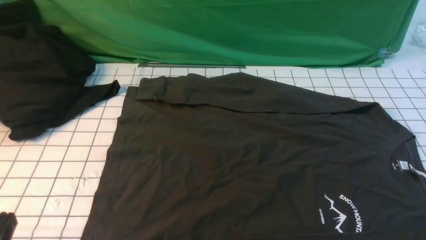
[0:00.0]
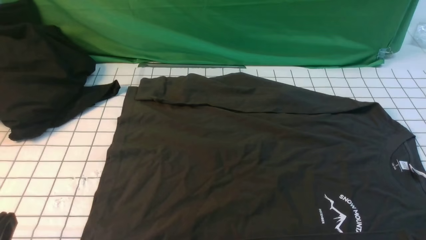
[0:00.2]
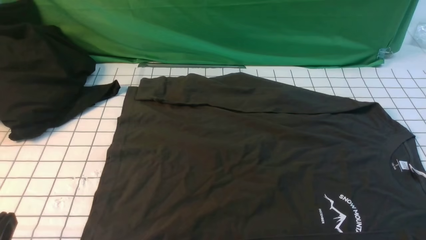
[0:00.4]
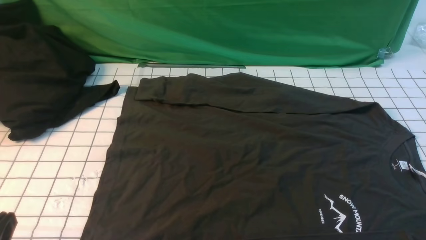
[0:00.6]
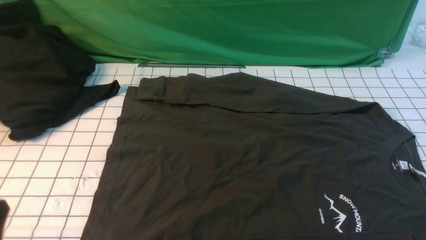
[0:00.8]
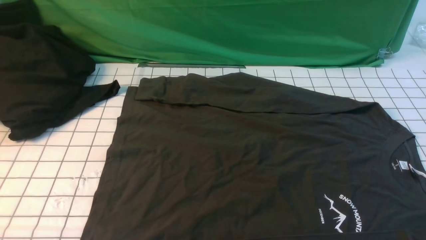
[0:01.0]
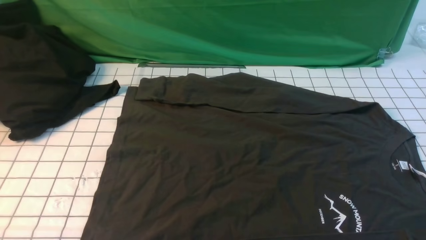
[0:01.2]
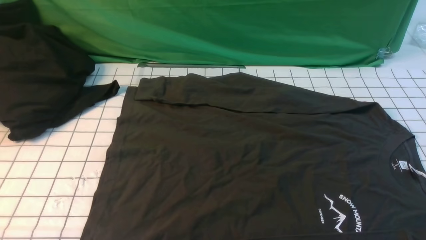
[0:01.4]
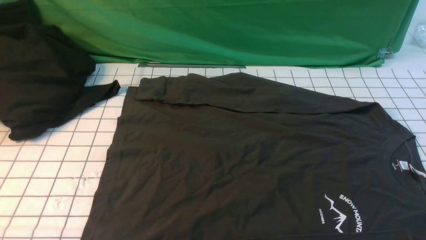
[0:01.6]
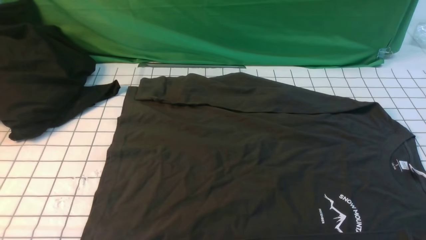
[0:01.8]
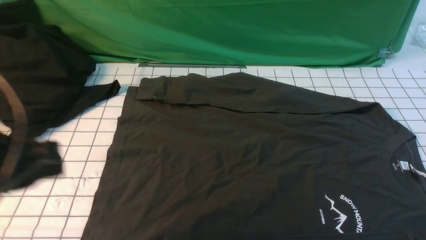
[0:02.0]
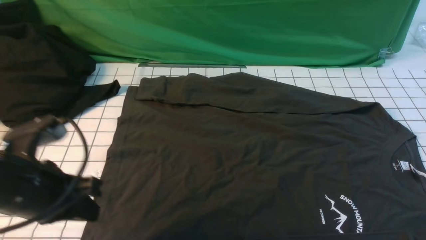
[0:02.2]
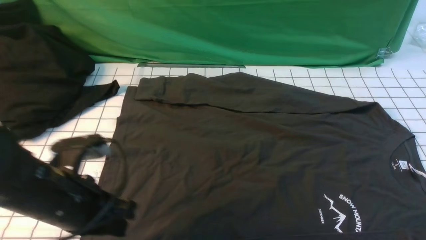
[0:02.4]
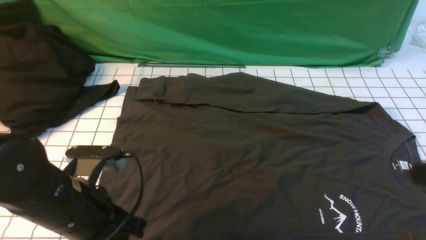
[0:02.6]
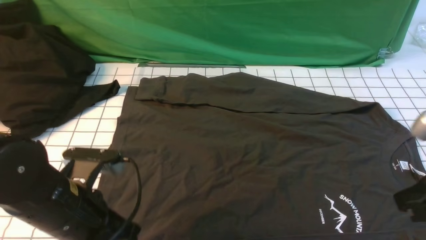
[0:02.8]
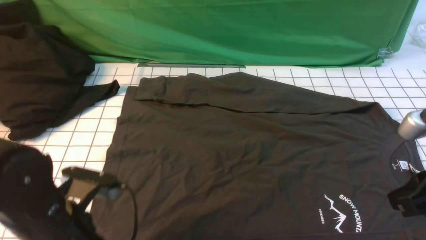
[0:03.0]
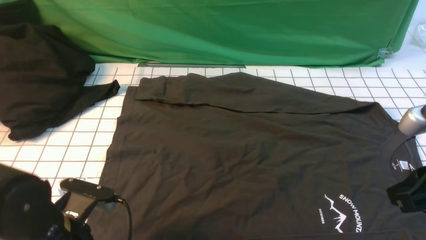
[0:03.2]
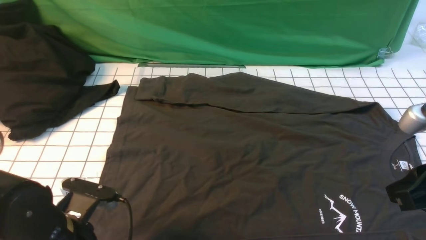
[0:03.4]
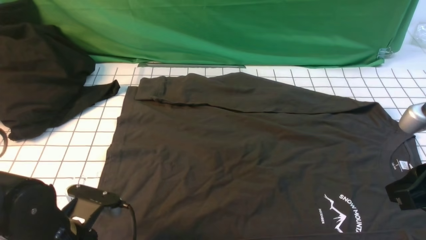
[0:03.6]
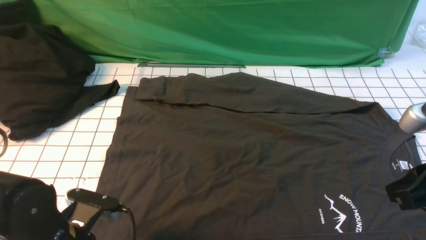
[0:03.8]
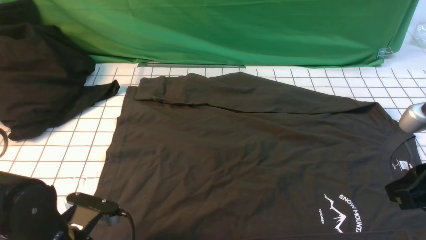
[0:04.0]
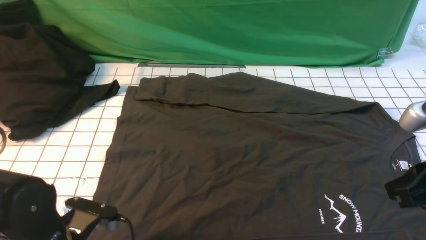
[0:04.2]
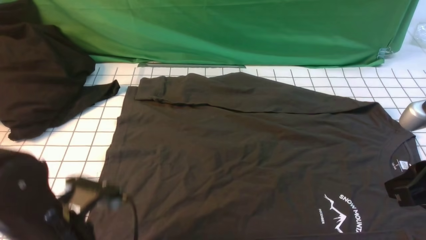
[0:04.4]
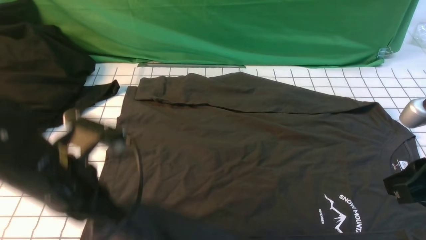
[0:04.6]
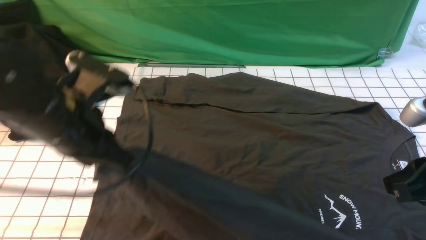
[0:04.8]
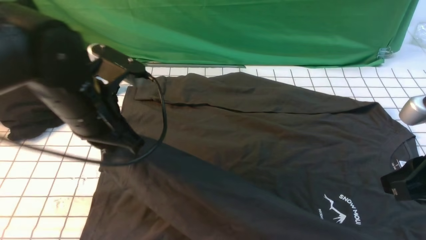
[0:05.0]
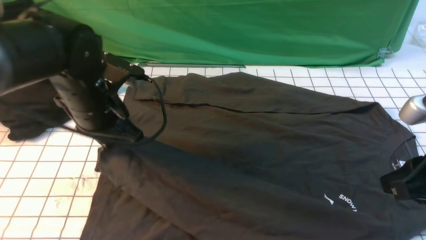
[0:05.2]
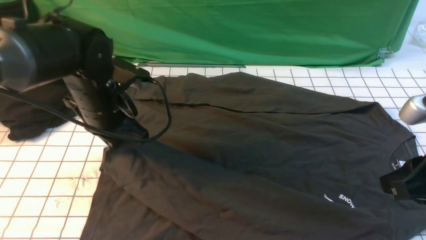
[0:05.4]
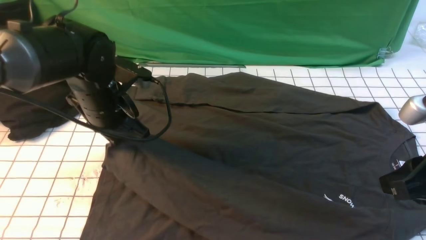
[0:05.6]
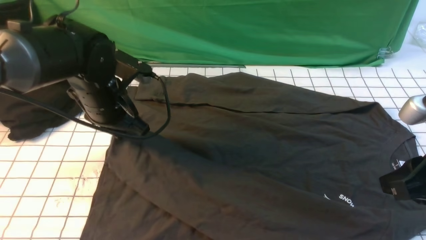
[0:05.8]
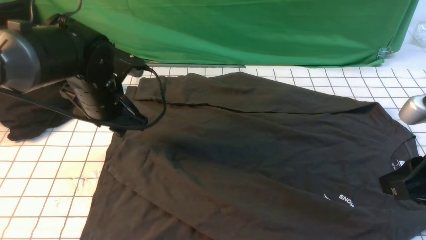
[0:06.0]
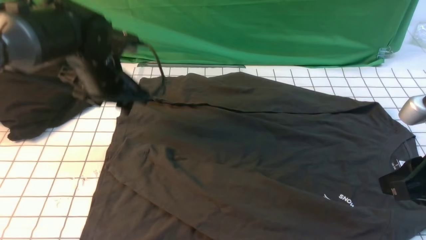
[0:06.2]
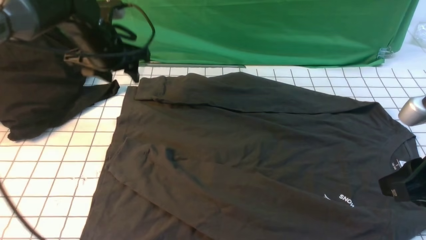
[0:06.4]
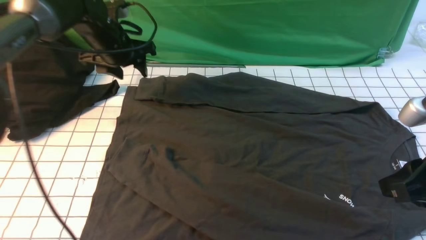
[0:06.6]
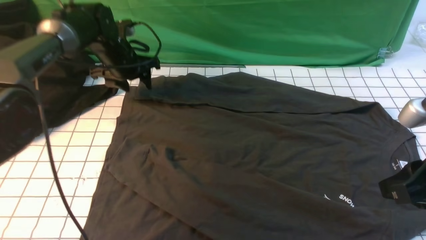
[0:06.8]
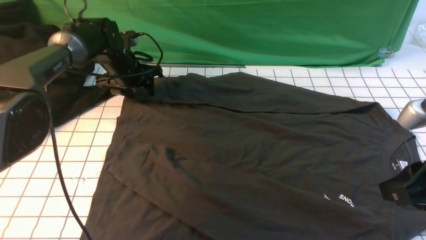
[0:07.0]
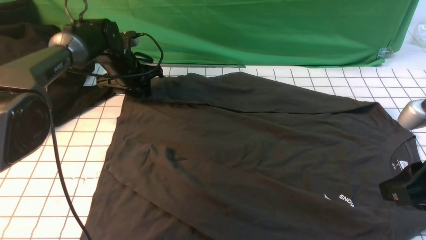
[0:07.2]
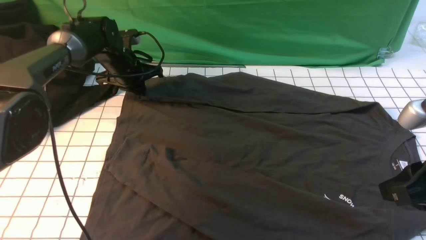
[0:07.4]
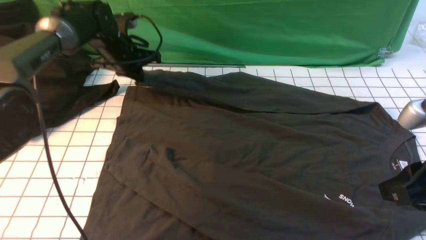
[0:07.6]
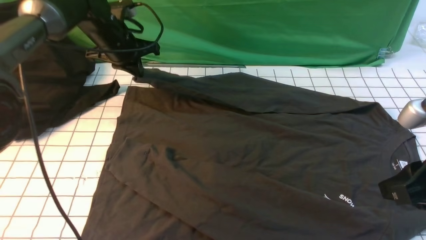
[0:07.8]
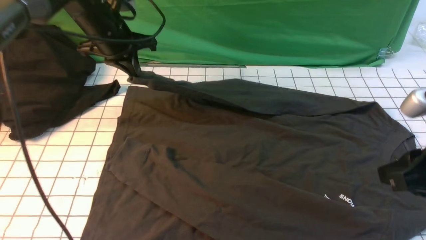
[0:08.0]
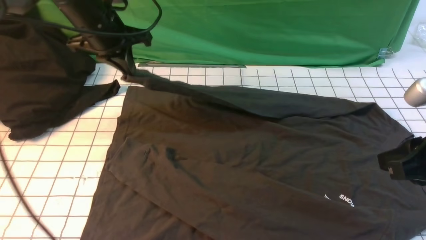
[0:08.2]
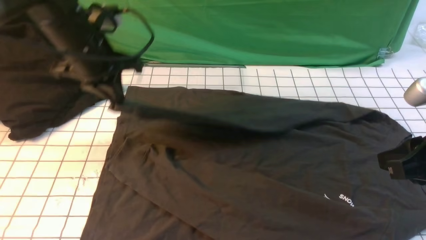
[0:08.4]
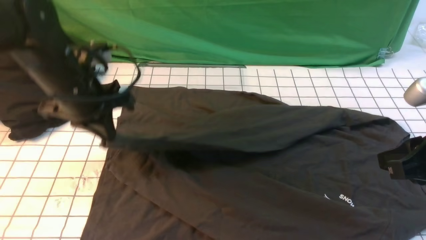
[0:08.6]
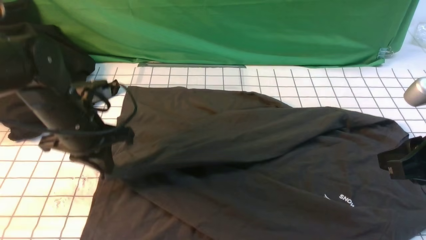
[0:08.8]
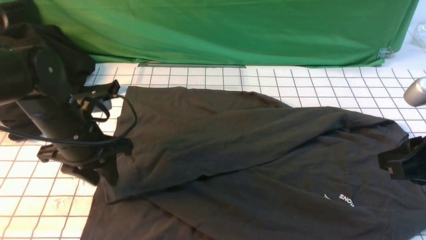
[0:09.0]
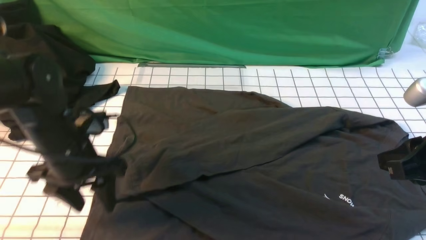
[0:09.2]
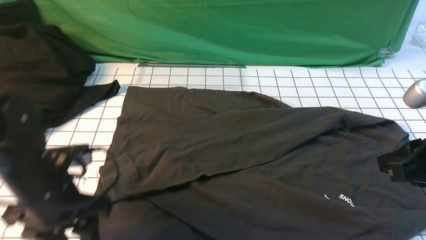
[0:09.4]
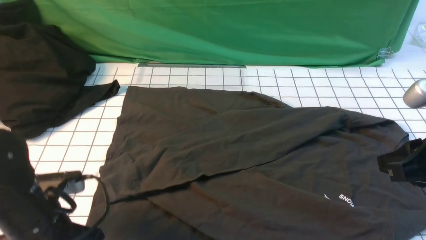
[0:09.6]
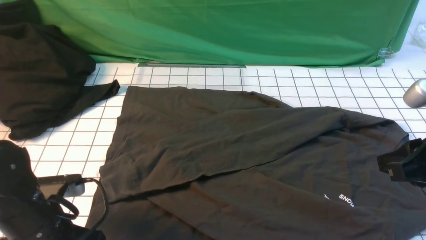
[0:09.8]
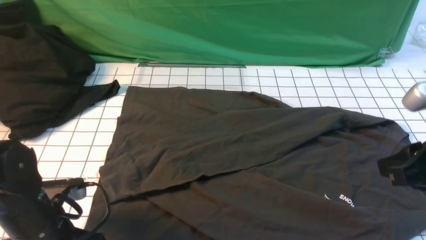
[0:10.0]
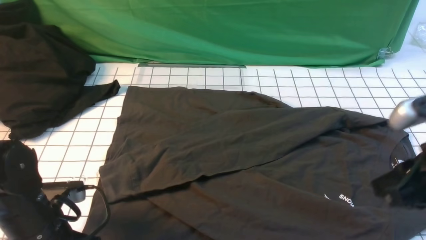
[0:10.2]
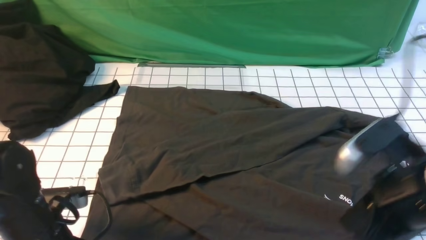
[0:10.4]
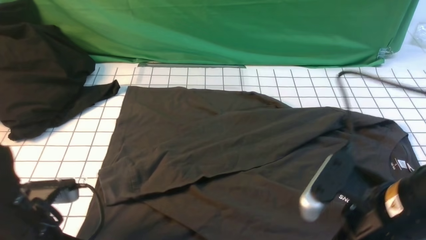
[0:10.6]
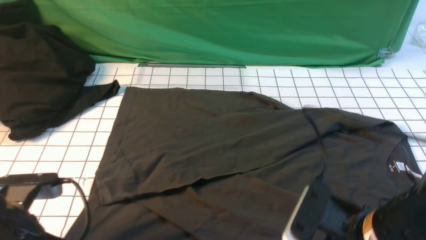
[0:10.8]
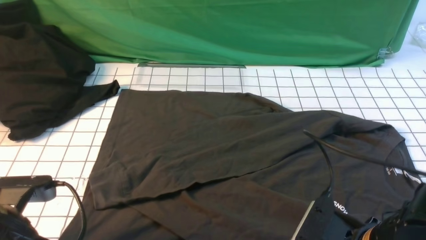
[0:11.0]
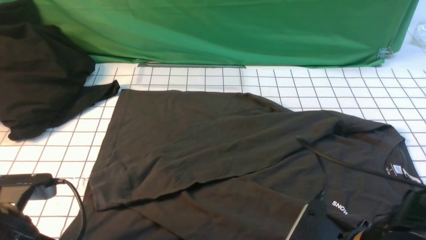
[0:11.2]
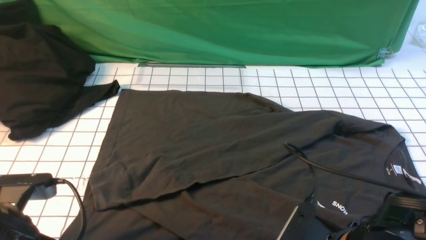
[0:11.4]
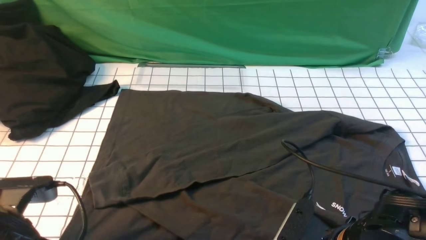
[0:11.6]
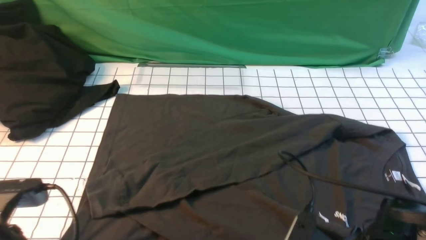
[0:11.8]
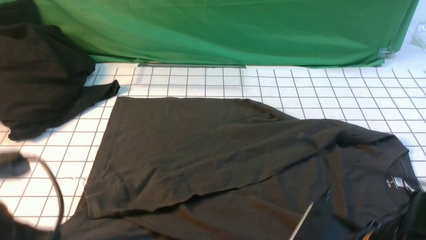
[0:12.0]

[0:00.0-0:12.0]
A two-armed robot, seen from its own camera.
Step, 0.0 to 4.2 s: use the left arm to clamp the cuff closest to it.
Step, 4.4 to 5.8 s: use the left arm to drag and place the cuff at the centered position on the left edge of the fabric.
Step, 6.0 to 7.2 s: use the left arm to clamp the cuff farthest from it.
Step, 7.4 to 8.8 s: use the left arm to drag and drop the cuff onto the cuff closest to the left arm.
Step, 9.0 to 11.4 s: use both arms simultaneously to clamp the lower edge of the clothing fabric.
1.6 to 3.0 s: The left gripper travels downward, forward and to the right by some 20 cm. Meanwhile the right gripper moves forward, upward and to the left, roughly 15 cm, and closes its fingers.
3.0 to 4.4 s: The left gripper closes its fingers.
4.4 to 6.0 s: The left gripper is displaced forward by some 20 cm, and opens up.
6.0 to 7.6 s: The left gripper moves forward, some 15 cm, and closes.
7.6 to 9.0 s: The left gripper moves backward, some 20 cm, and opens.
9.0 to 10.4 s: The left gripper travels backward by some 10 cm, and closes up; the right gripper moves to the left, approximately 5 cm.
10.4 to 12.0 s: The left gripper heads upward, covering roughly 10 cm. Meanwhile the right gripper travels downward by roughly 5 cm, and opens and closes again.

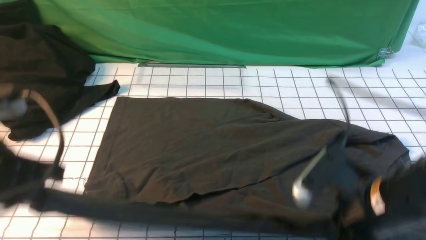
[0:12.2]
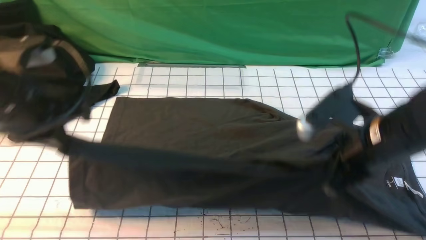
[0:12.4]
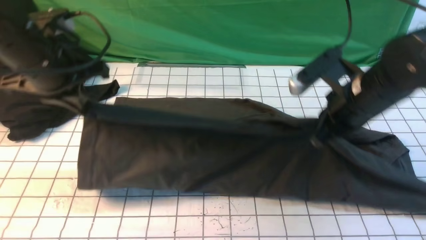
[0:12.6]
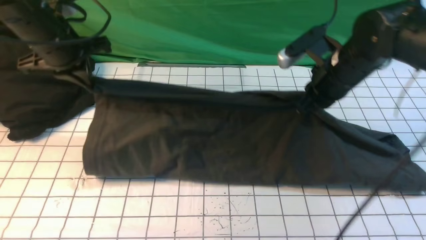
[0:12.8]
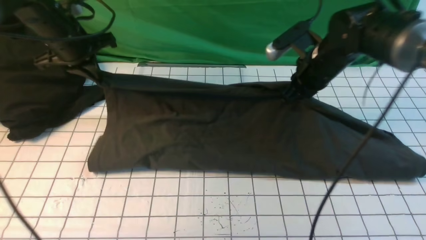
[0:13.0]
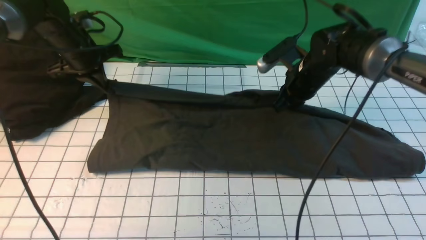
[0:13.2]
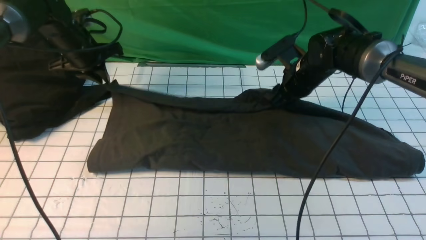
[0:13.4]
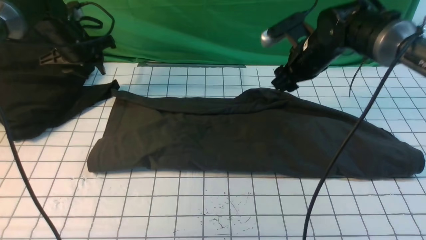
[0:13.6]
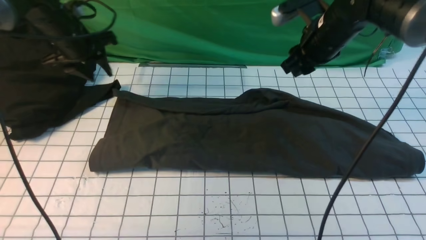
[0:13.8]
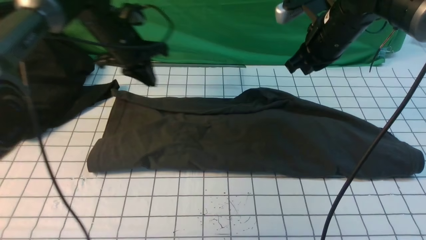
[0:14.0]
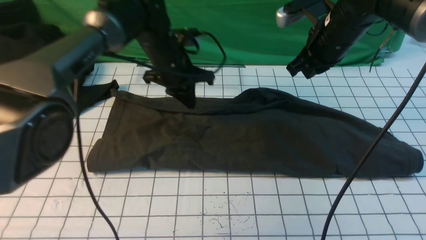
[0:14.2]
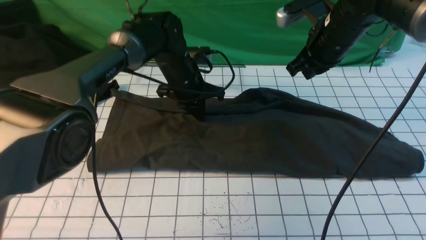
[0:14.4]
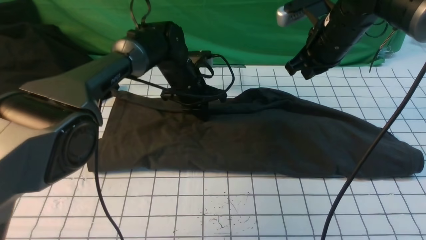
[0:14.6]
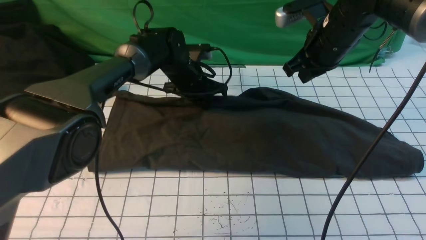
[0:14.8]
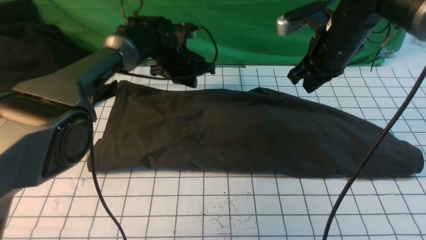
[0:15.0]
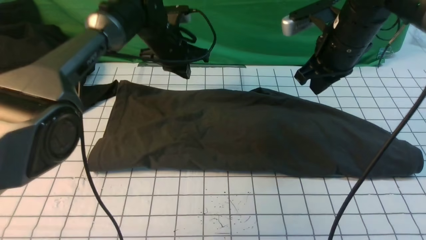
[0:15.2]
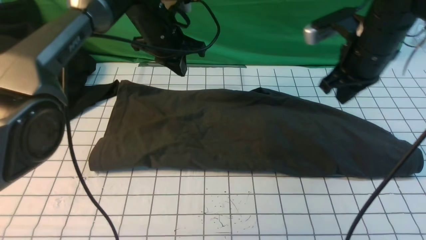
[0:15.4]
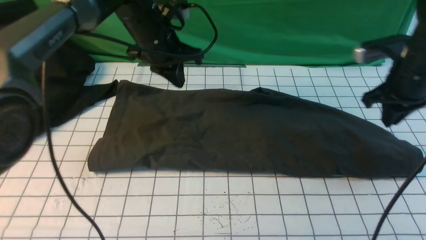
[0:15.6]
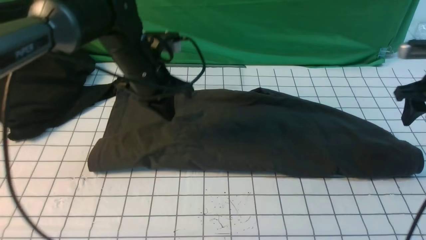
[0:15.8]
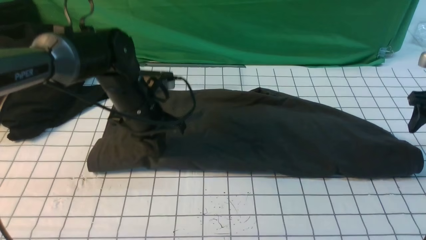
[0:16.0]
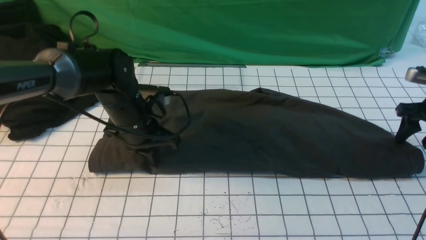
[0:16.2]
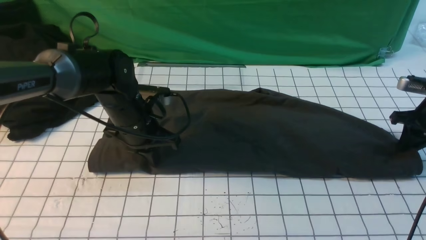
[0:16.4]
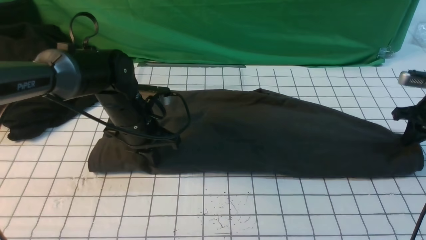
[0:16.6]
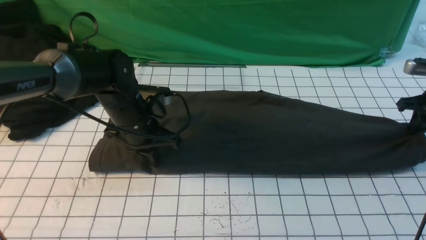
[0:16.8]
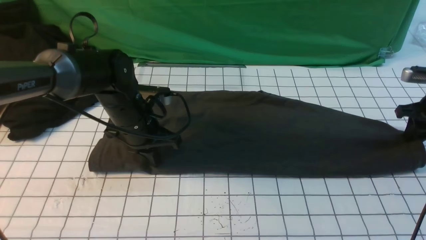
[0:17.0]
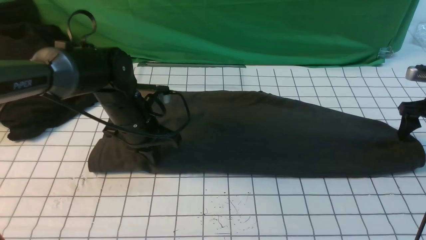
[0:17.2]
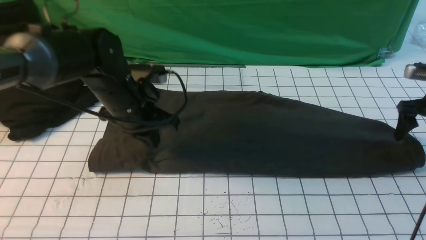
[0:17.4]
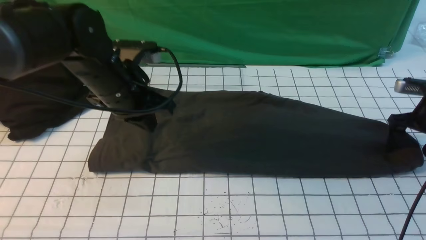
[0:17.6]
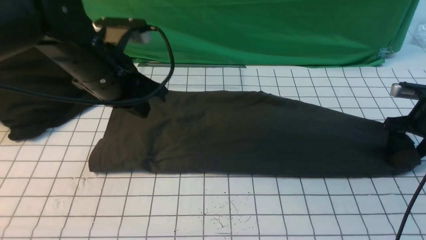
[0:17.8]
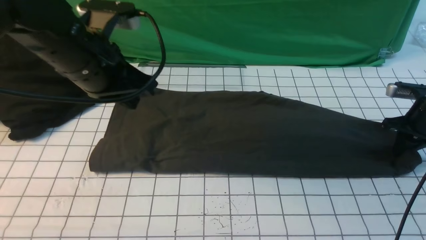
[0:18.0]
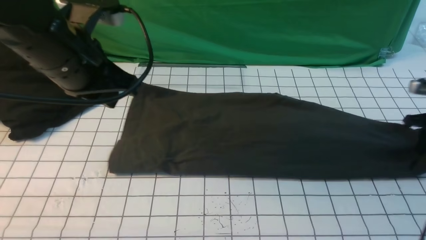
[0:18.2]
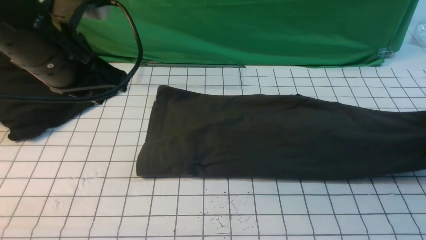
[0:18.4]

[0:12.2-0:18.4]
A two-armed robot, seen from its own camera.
Step, 12.2 to 13.4 s: use both arms to drag the lower edge of the fabric forward and fold it over the upper edge.
Step, 13.6 to 18.0 s: use the right arm to clamp the right edge of the fabric.
12.2 to 13.8 s: The two grippers go approximately 30 cm forward. The right gripper opens up, while the left gripper opens.
13.8 to 15.4 s: The right gripper moves to the right, about 5 cm; the left gripper shifts approximately 15 cm to the right, and closes up.
15.4 to 16.8 s: The left gripper goes some 15 cm backward and downward. Meanwhile the right gripper travels to the right and downward by some 20 cm, and opens and closes again.
16.8 to 18.4 s: The right gripper moves roughly 5 cm, and opens, then closes once more; the left gripper travels upward and backward by roughly 20 cm.
